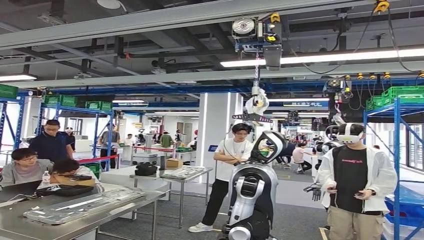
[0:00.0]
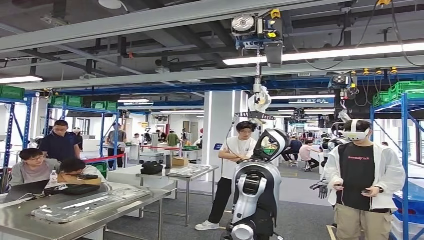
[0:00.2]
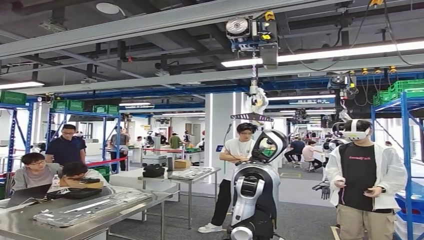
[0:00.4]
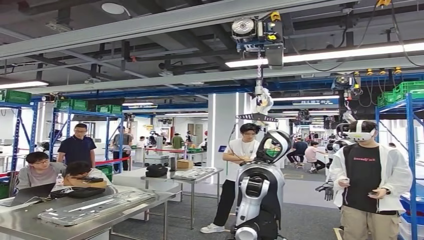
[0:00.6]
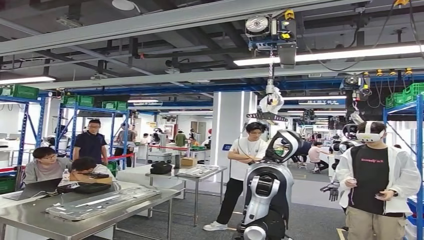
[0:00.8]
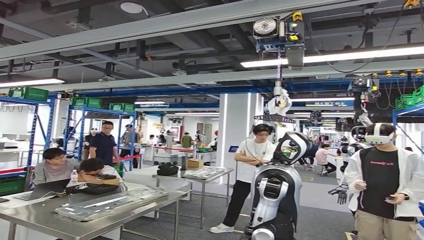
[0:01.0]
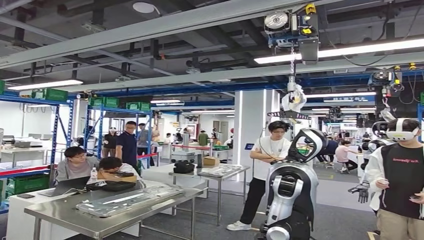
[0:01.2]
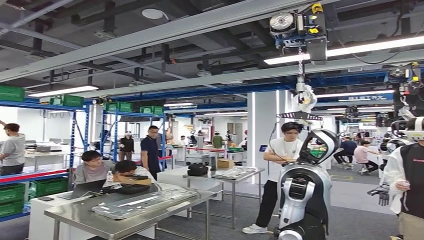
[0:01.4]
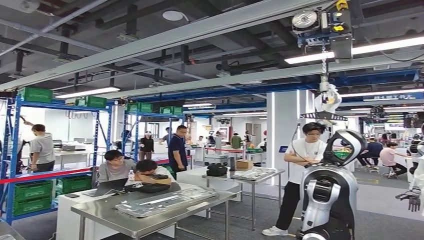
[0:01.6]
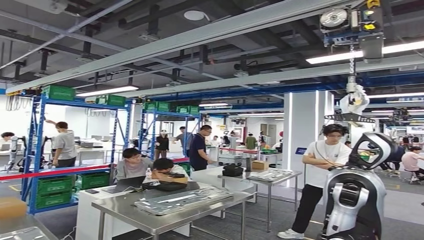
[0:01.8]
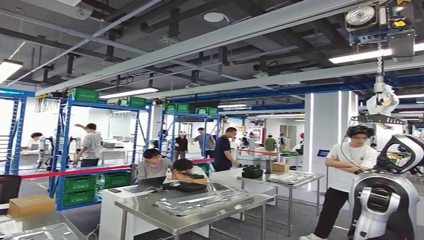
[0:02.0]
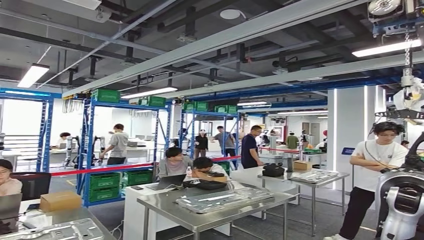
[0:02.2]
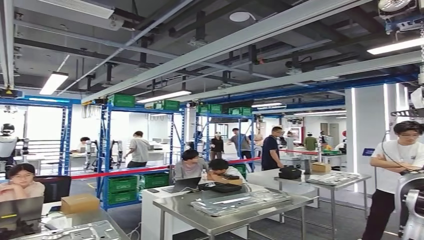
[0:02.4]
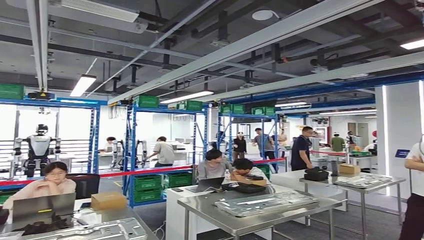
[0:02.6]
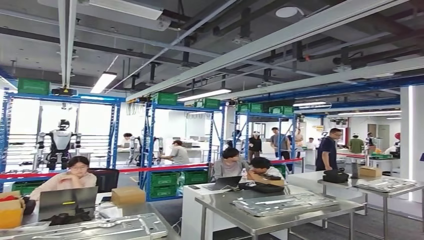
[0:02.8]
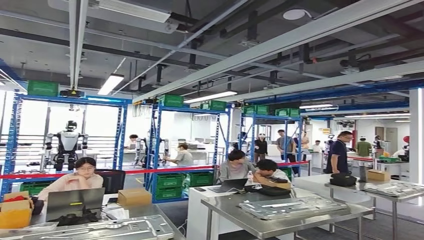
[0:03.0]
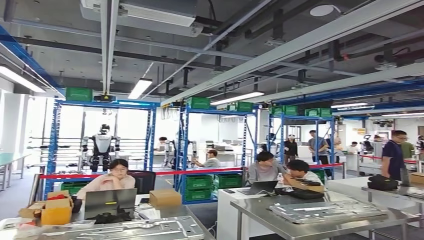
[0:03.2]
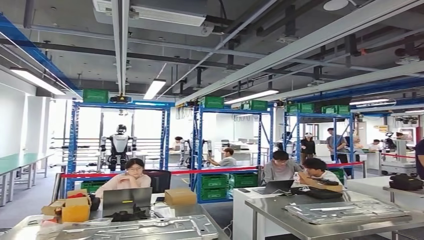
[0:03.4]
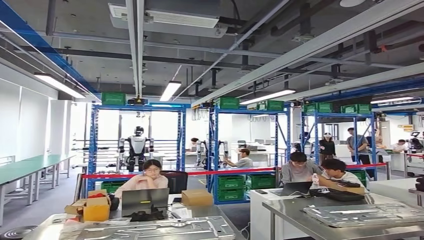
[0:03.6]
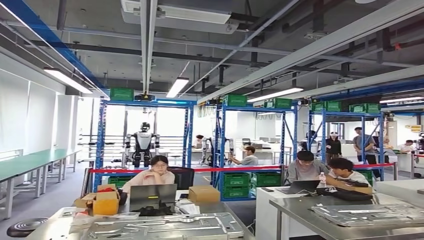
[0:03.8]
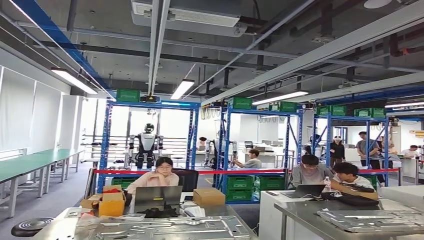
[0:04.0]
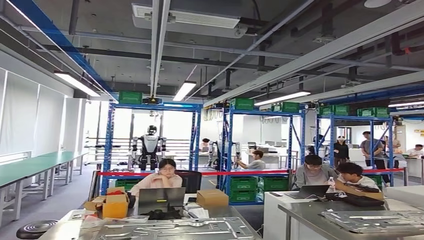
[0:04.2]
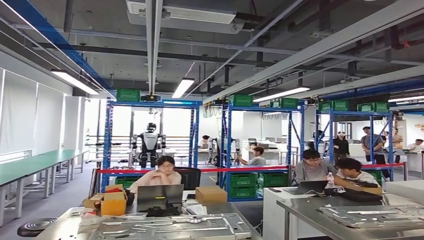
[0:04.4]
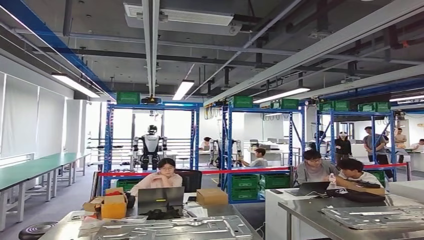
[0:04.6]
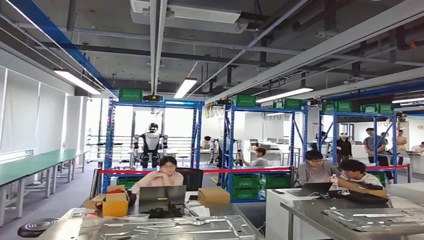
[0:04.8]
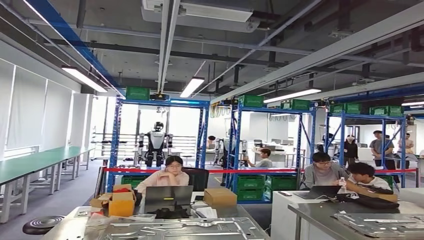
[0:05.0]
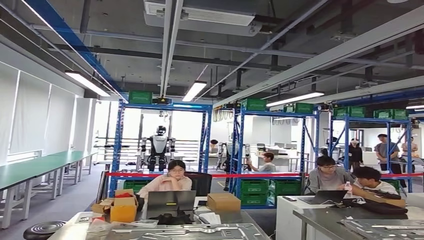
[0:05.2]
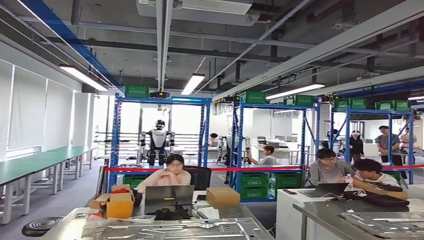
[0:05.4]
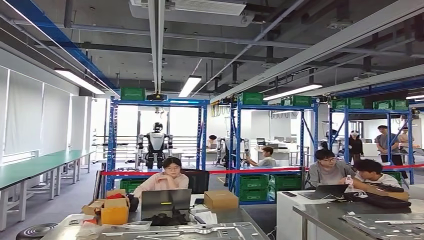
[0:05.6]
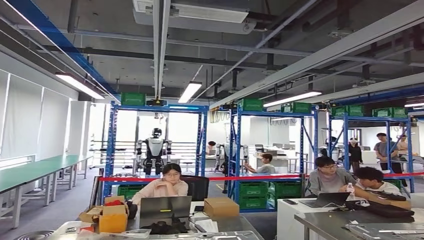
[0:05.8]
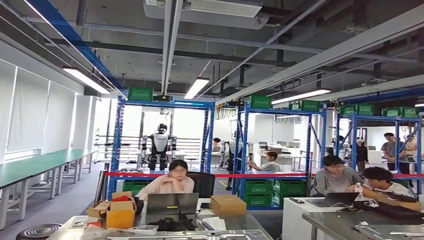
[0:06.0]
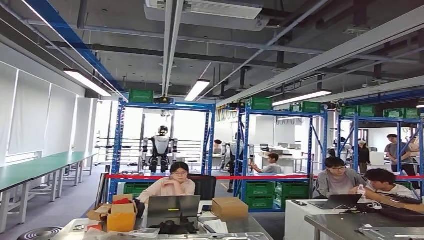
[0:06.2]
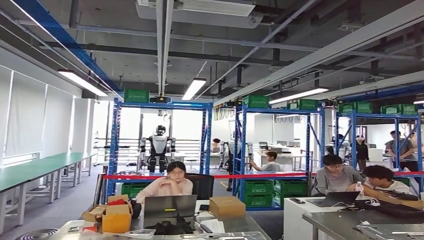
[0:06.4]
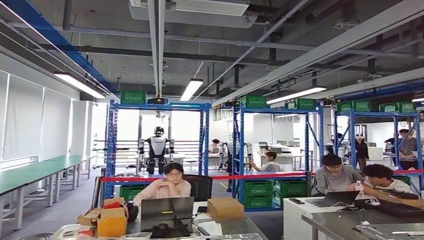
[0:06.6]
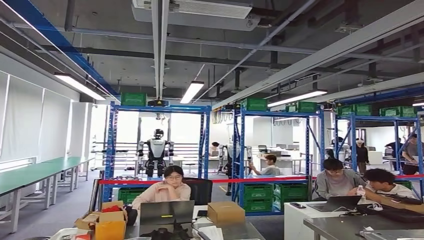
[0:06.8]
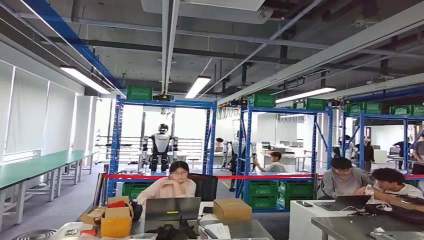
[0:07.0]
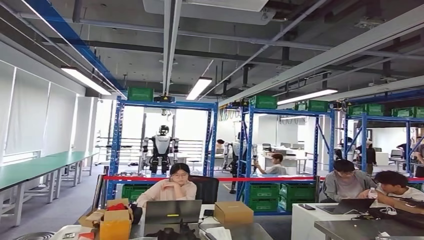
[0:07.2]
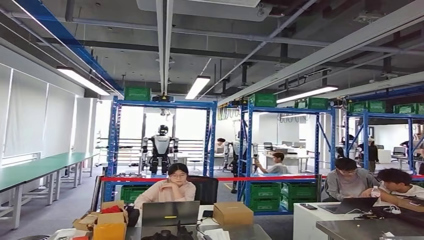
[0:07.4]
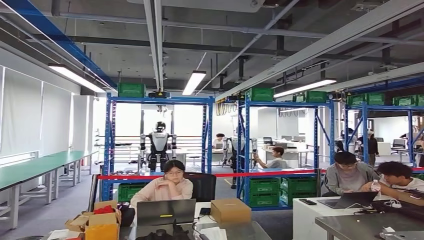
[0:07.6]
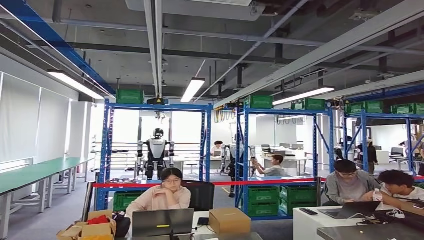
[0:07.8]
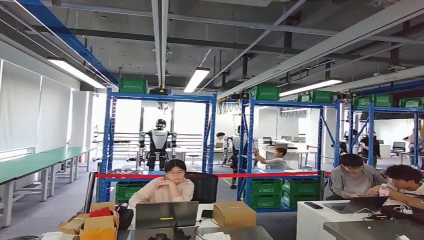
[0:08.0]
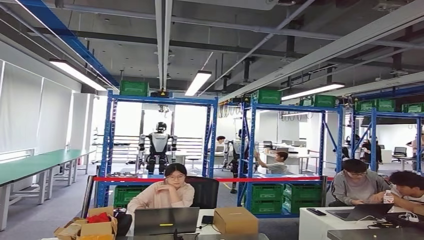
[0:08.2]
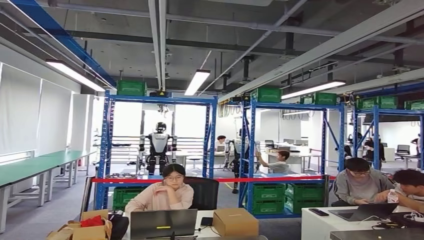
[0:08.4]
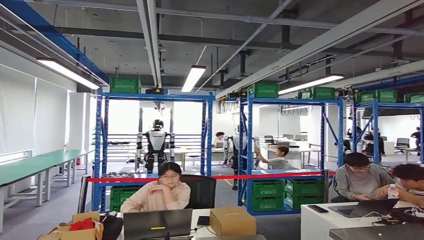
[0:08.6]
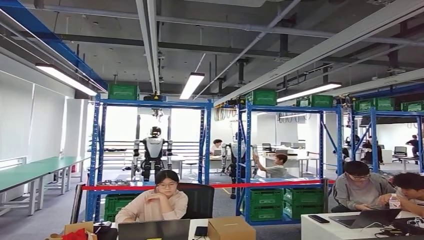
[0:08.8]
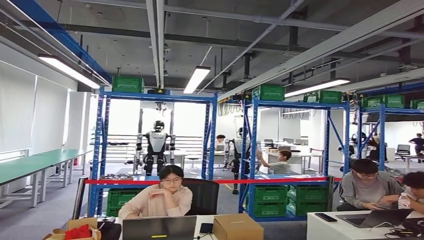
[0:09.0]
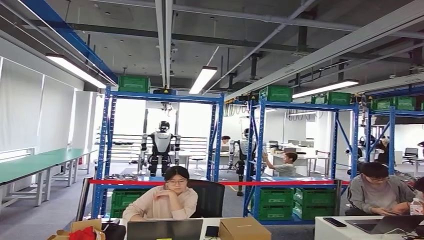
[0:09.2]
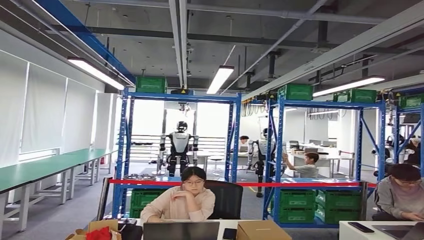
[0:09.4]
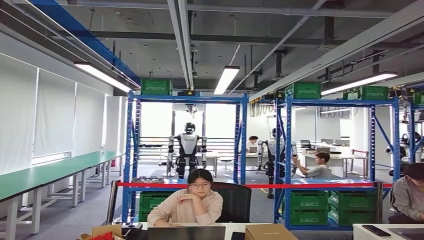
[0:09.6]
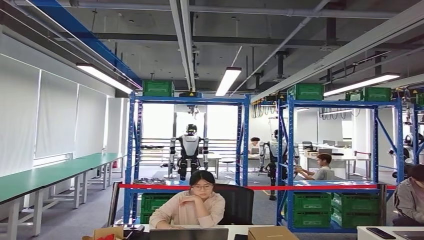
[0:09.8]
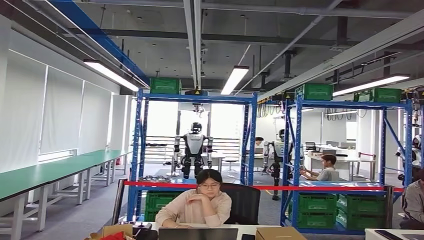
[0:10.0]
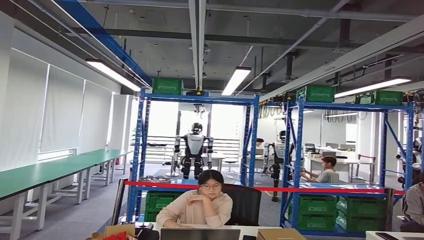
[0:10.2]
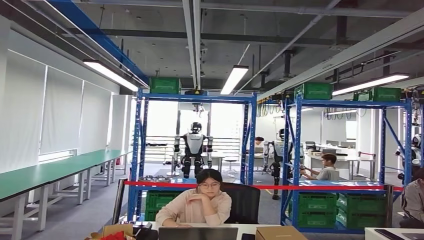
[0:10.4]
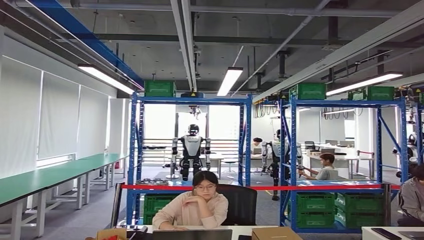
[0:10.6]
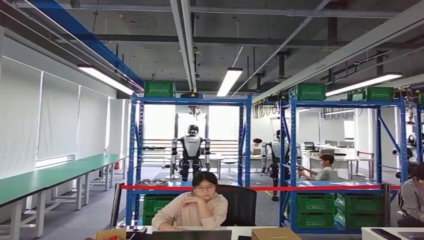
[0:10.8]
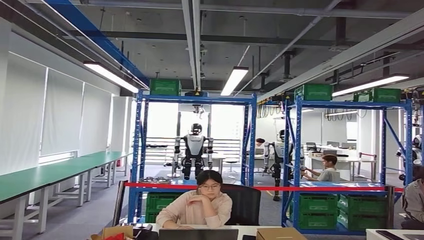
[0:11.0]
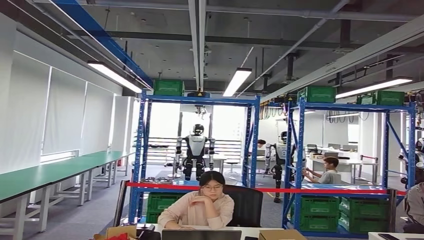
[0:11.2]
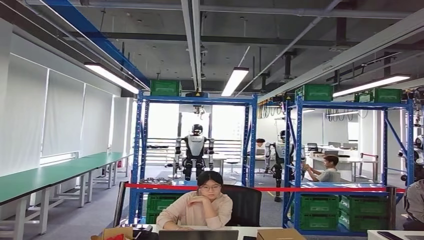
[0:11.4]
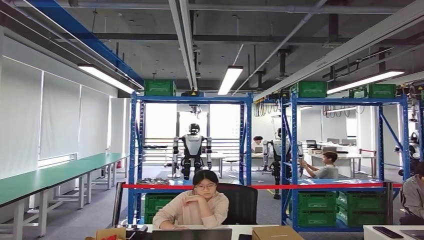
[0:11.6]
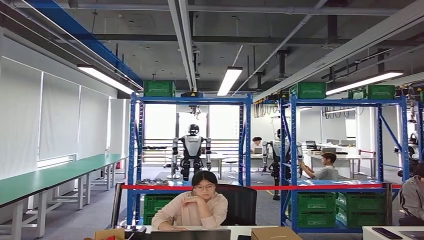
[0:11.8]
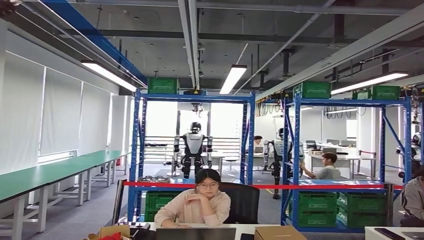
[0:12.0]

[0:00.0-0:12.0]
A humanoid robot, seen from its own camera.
Step, 0:00.0 to 0:06.8: Move the small component to the workbench.
0:10.4 to 0:12.0: The right hand shifts approximately 15 cm forward, to the right and downward.

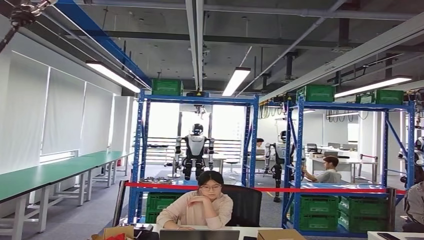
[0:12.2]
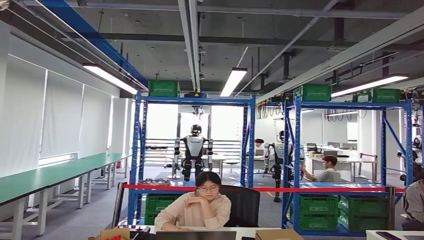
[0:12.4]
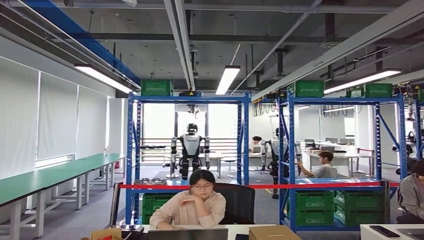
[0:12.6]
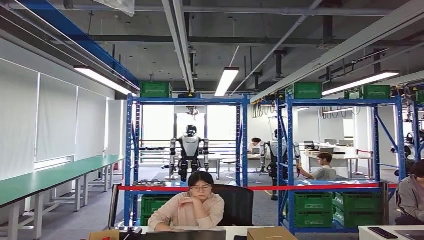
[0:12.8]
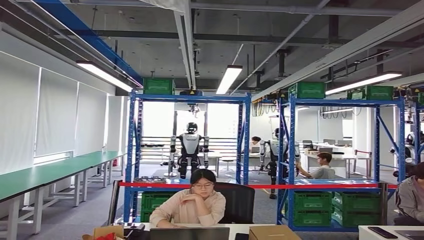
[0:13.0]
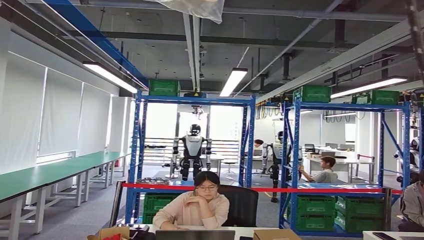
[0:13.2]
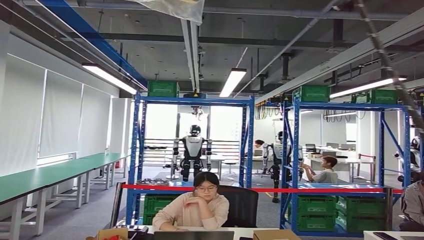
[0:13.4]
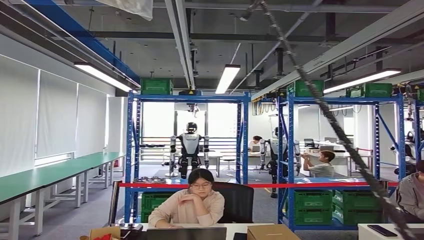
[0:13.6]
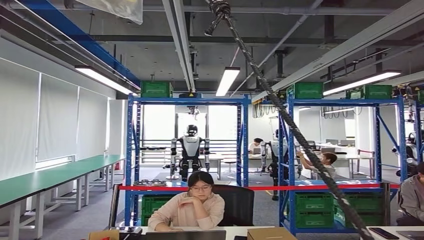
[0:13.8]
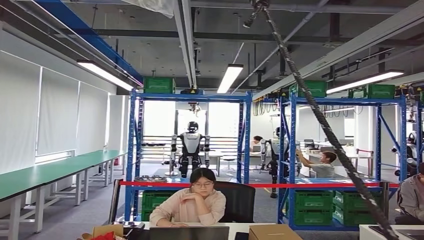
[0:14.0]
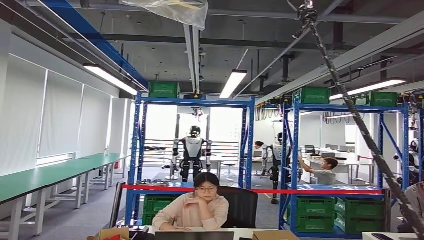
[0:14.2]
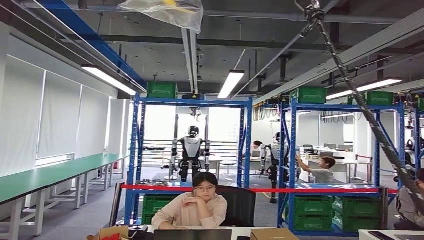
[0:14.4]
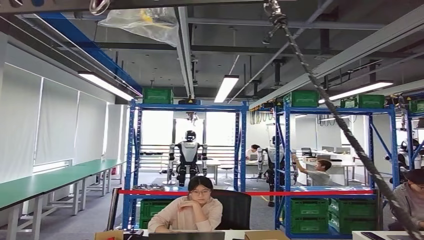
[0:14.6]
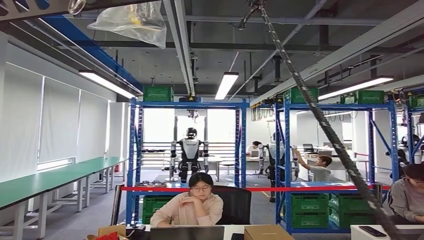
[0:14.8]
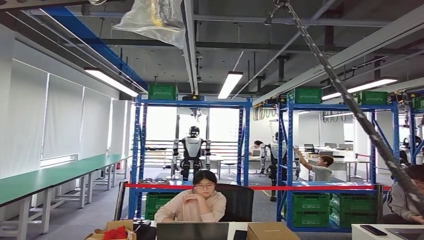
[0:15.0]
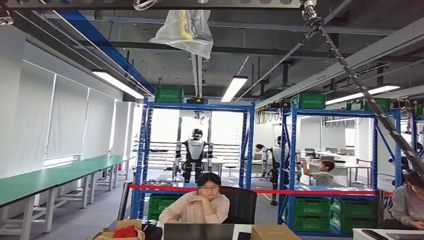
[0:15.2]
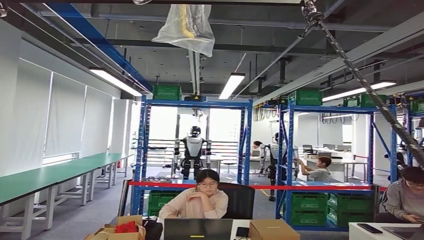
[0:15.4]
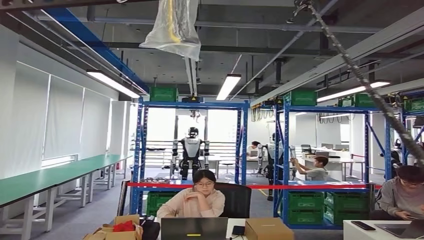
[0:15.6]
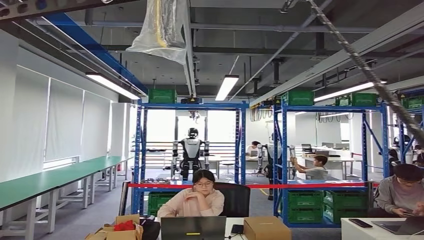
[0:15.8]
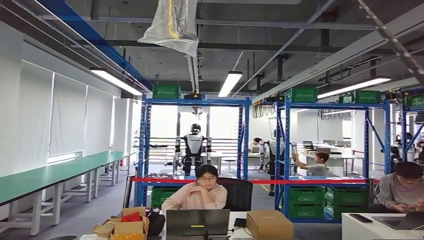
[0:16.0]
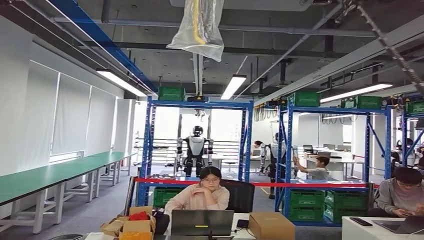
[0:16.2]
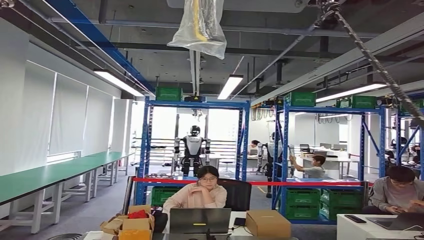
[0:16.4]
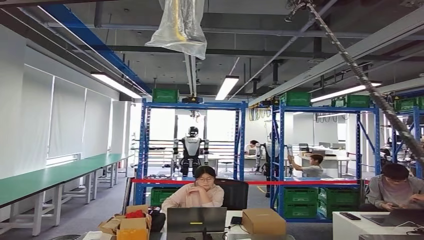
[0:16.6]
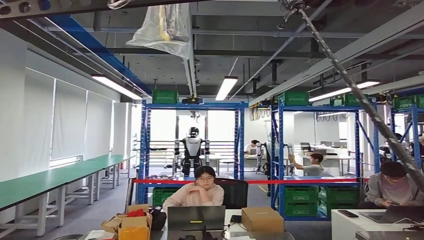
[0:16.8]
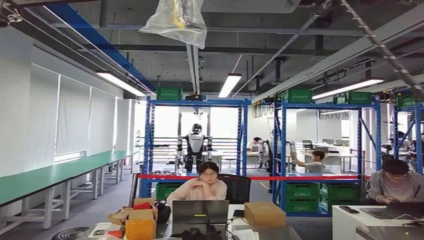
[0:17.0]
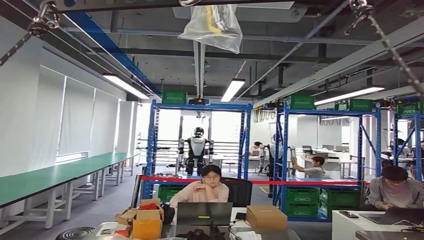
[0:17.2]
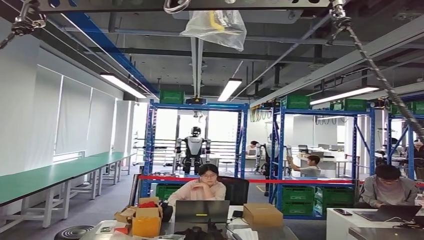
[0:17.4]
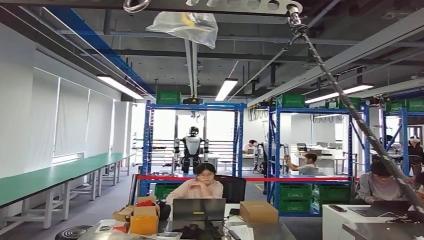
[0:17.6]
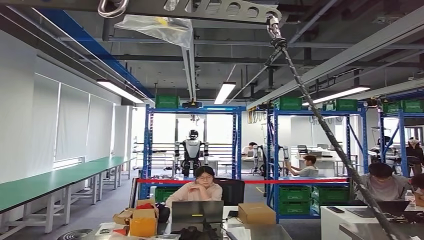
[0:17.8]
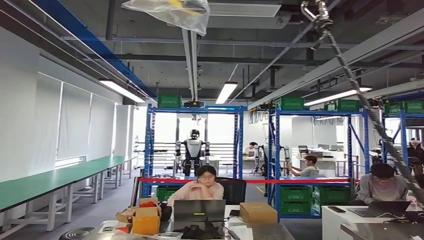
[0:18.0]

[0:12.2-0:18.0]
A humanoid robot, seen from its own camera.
Step, 0:13.6 to 0:18.0: Move to the initial position at the workbench.
